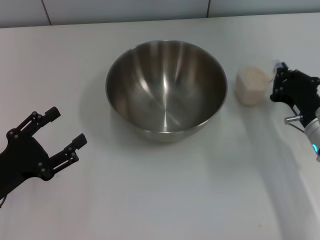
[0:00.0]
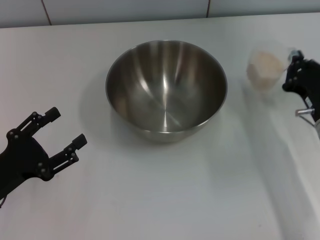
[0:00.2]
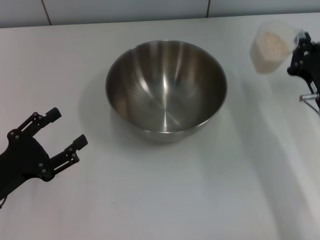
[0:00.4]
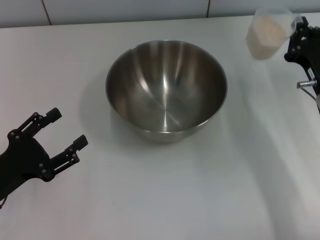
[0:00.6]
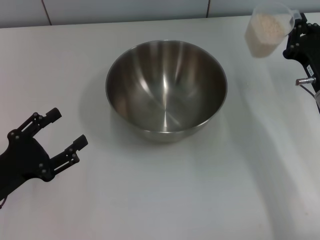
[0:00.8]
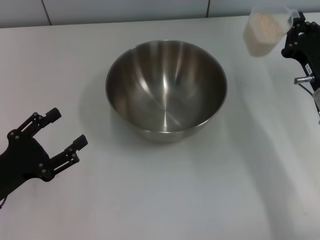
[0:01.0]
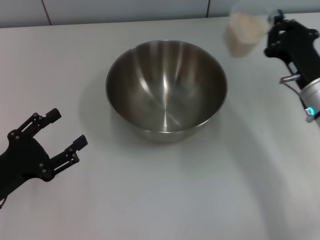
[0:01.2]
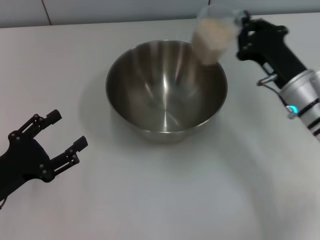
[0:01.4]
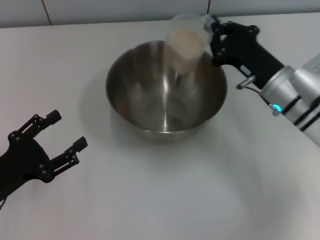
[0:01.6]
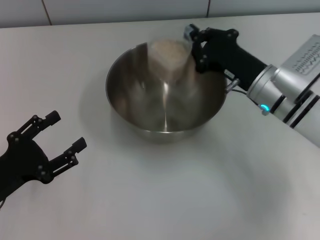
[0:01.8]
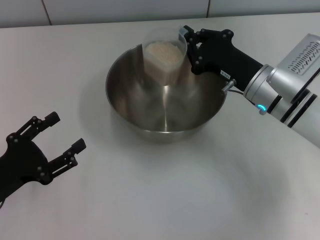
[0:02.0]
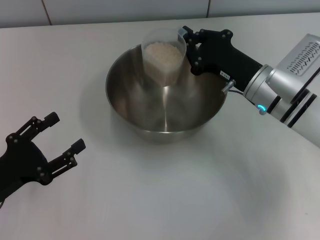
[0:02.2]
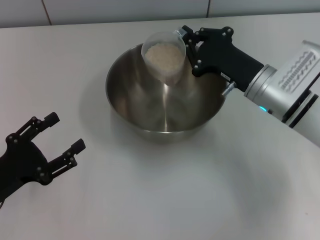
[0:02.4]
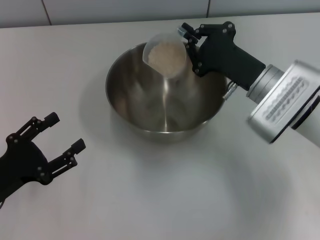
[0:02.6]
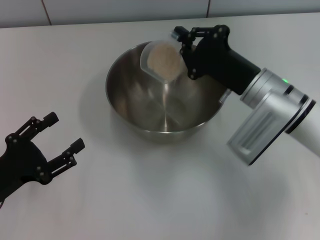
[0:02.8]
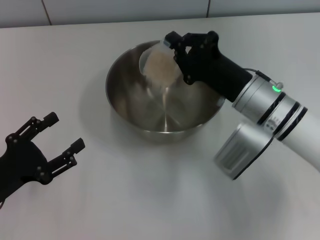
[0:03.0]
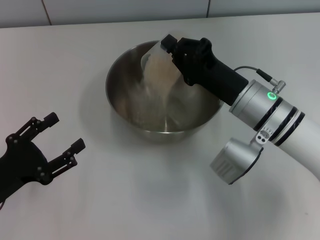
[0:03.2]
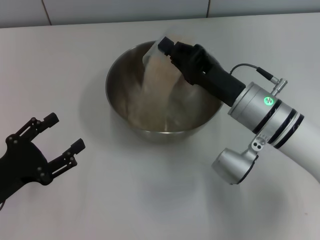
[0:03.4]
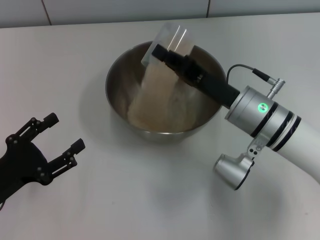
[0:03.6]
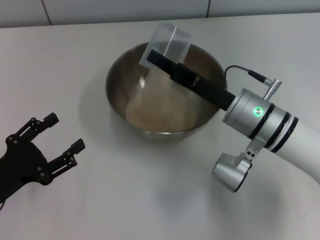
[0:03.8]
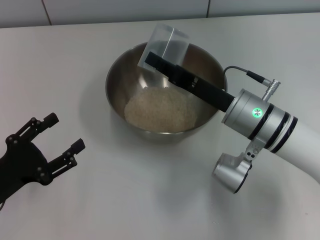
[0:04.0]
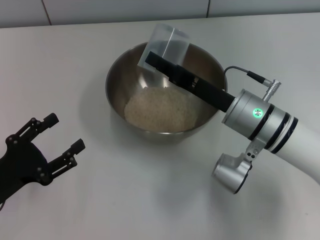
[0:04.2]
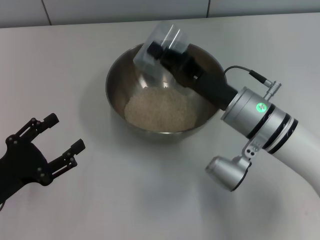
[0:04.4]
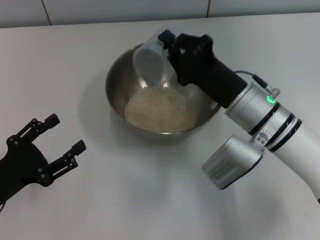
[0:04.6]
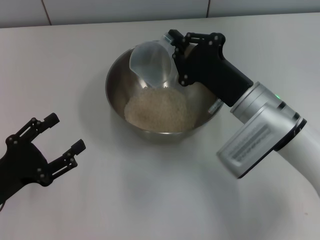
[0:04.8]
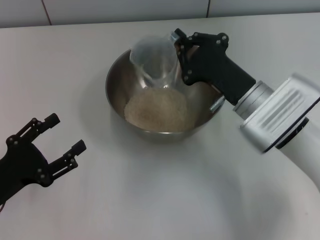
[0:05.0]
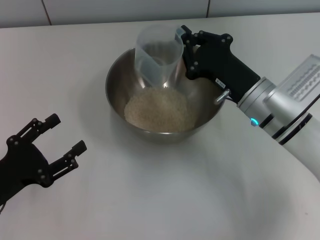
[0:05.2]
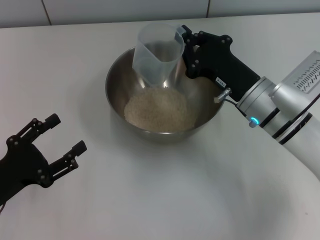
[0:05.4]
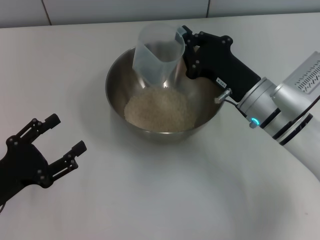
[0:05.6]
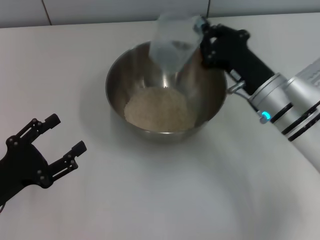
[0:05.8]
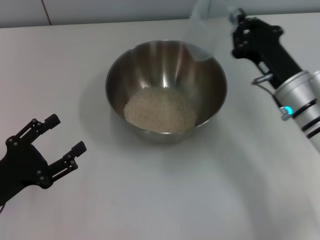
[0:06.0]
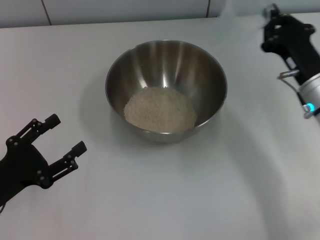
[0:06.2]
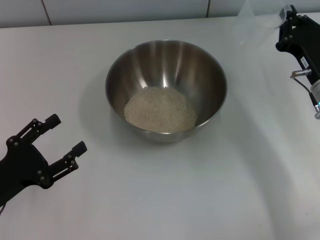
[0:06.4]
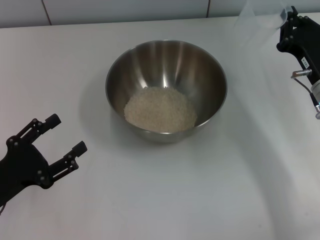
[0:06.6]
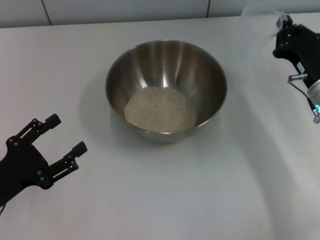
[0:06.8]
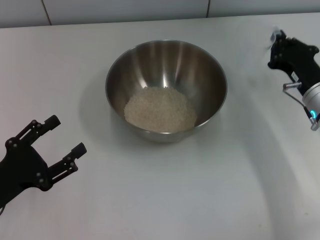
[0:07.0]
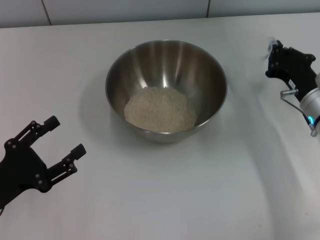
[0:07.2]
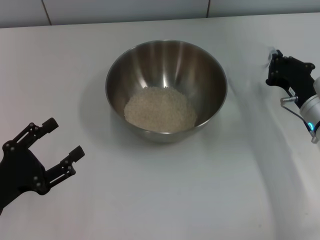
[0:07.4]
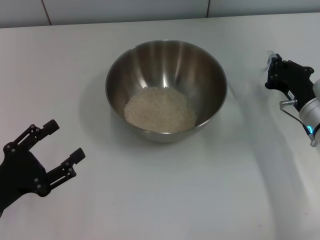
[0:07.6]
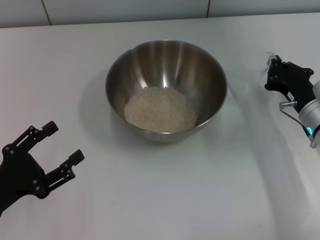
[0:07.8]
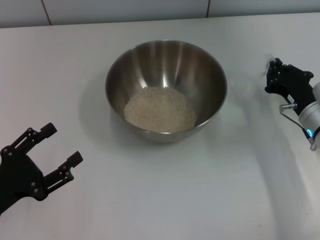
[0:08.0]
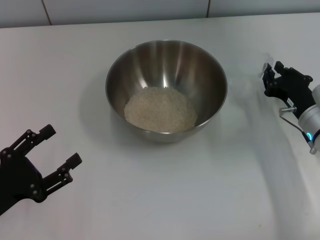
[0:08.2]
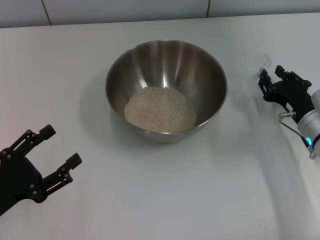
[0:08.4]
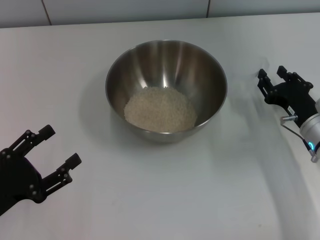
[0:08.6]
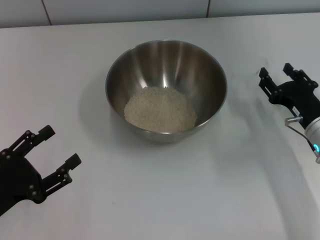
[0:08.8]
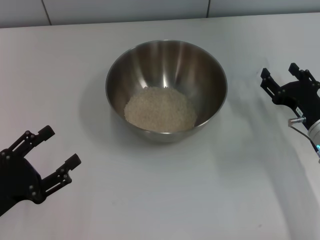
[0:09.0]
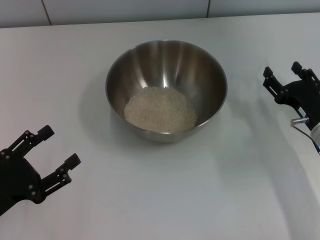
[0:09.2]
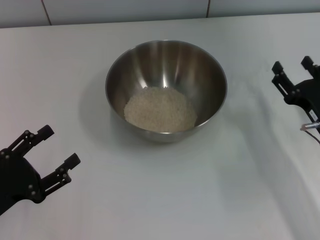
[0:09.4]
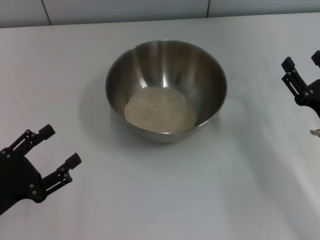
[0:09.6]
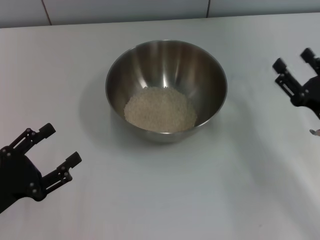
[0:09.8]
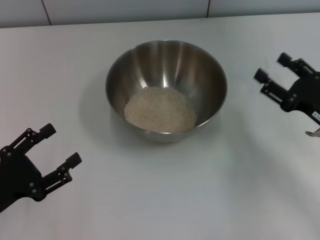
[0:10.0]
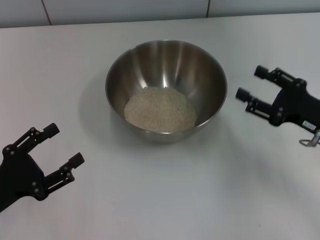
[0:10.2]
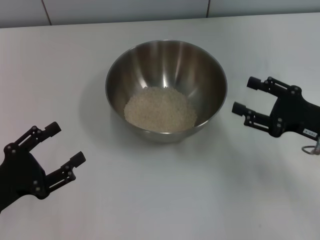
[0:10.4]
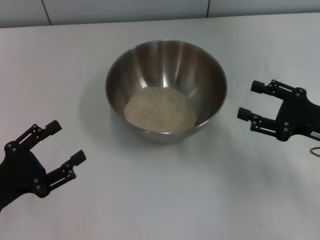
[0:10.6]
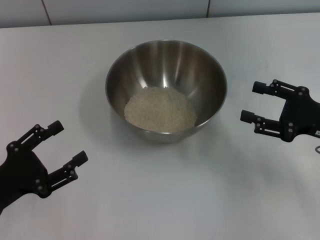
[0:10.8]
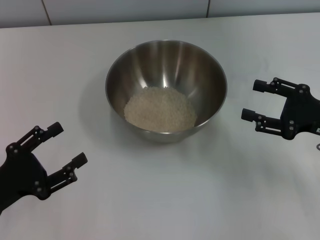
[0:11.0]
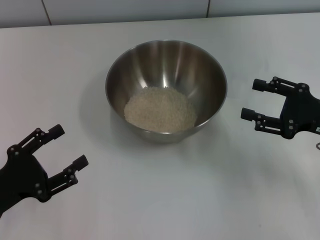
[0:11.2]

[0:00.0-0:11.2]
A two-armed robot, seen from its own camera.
Task of the whole recording: Place the bowl in the middle of the table with one hand and pour the rice from the grain cup into it with the other hand.
Step, 0:01.4 to 0:06.4: Pour the rice from the cup into the bowl with the right gripper.
Step, 0:06.6 to 0:09.0: Place the cup on the table with the right gripper.
0:00.0 to 0:01.6: The right gripper heads to the left, upward and forward, covering some 10 cm.
0:04.8 to 0:06.4: The right gripper is displaced to the right by approximately 10 cm.
0:08.0 to 0:09.6: The right gripper goes approximately 5 cm backward, and opens.
0:09.6 to 0:11.2: The right gripper changes place by about 5 cm.
